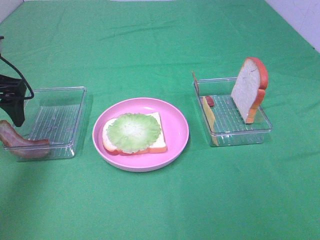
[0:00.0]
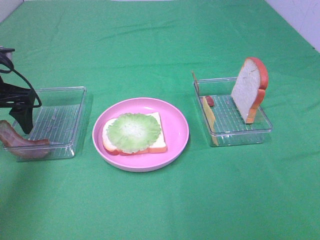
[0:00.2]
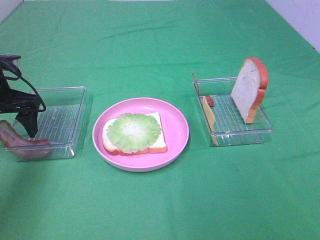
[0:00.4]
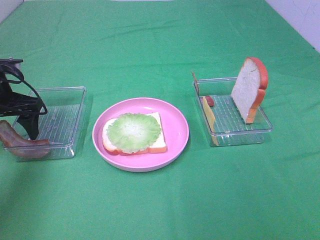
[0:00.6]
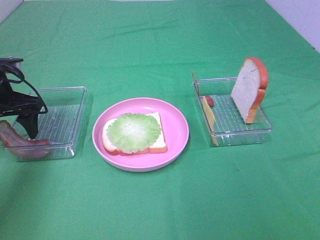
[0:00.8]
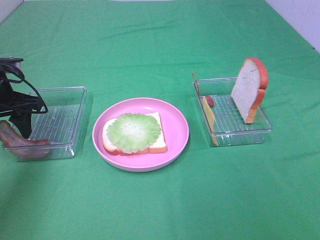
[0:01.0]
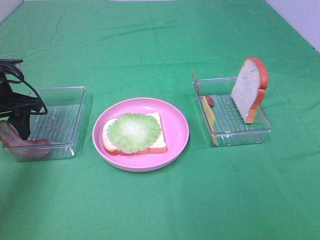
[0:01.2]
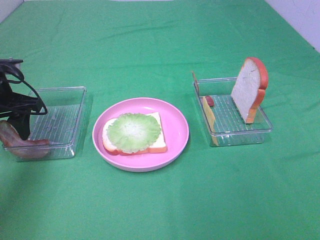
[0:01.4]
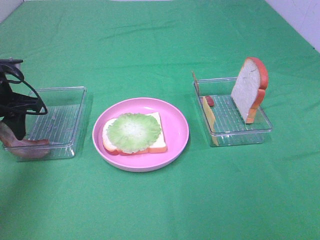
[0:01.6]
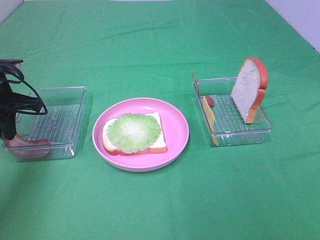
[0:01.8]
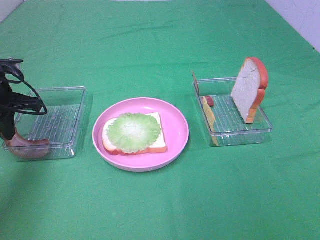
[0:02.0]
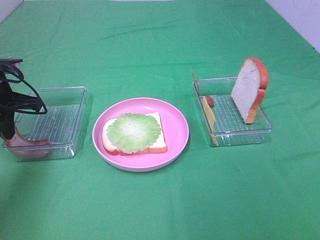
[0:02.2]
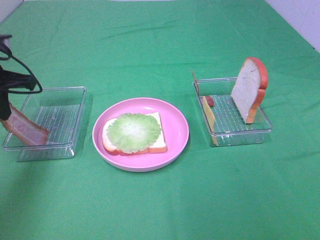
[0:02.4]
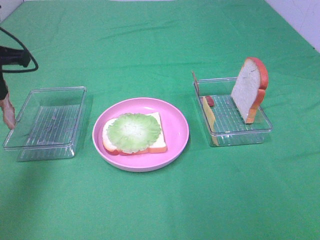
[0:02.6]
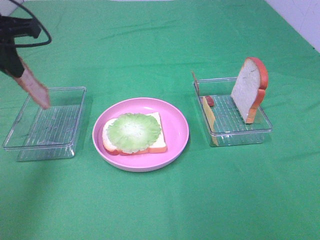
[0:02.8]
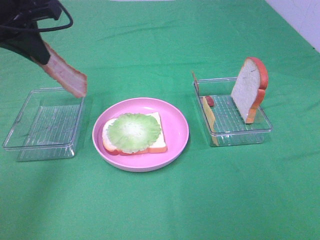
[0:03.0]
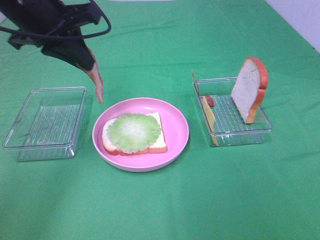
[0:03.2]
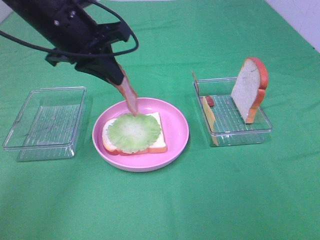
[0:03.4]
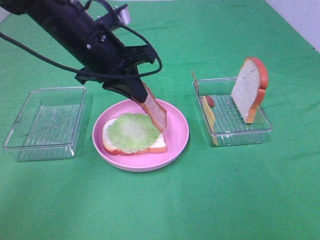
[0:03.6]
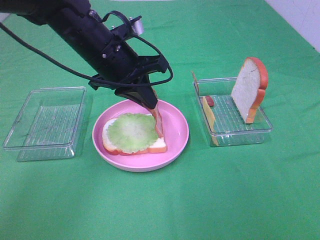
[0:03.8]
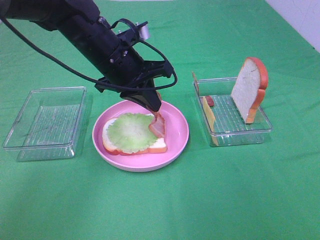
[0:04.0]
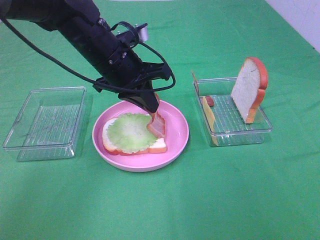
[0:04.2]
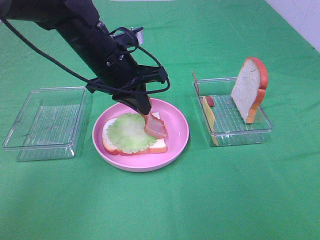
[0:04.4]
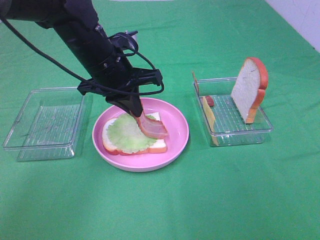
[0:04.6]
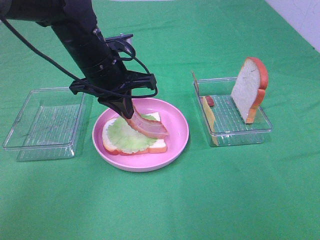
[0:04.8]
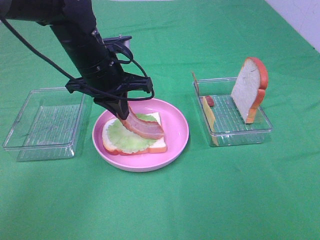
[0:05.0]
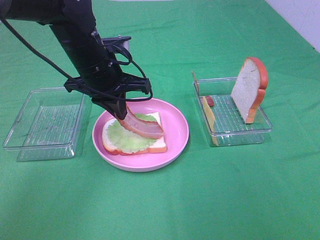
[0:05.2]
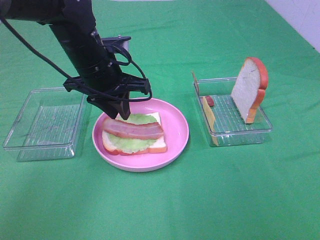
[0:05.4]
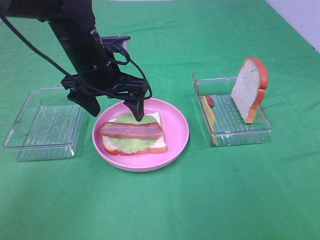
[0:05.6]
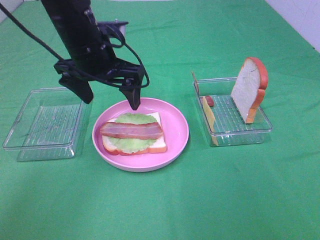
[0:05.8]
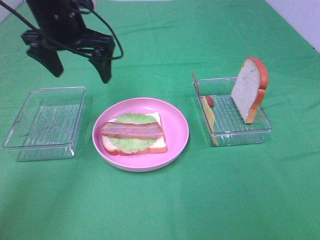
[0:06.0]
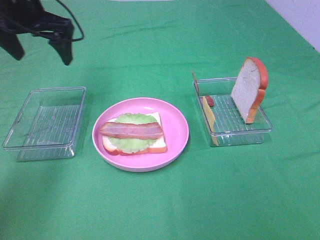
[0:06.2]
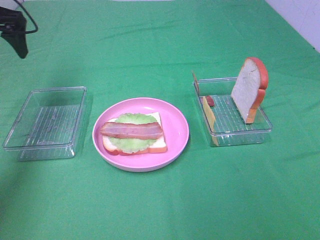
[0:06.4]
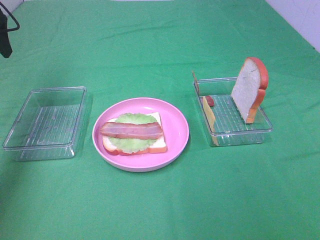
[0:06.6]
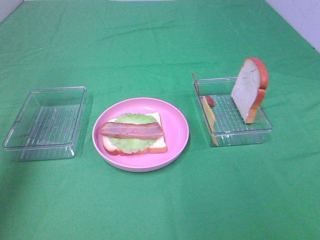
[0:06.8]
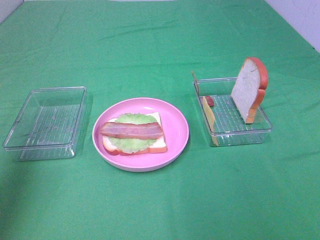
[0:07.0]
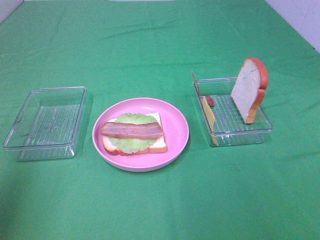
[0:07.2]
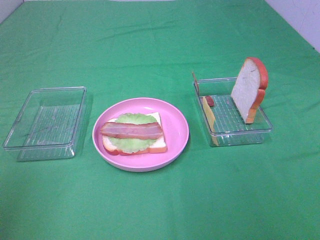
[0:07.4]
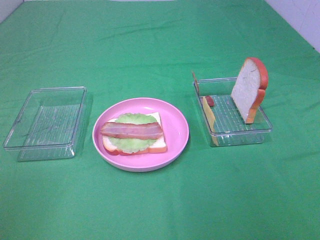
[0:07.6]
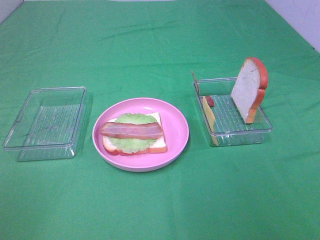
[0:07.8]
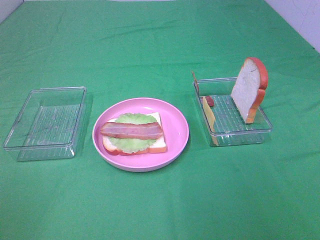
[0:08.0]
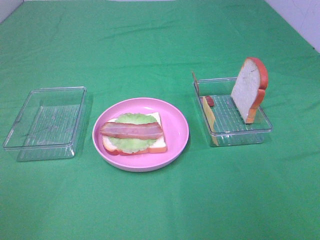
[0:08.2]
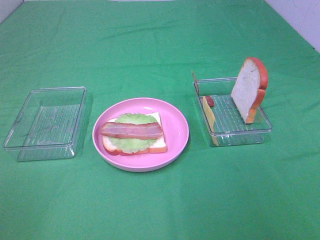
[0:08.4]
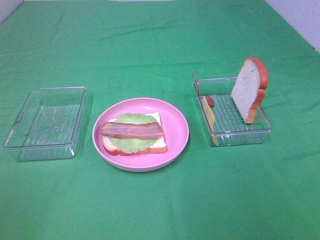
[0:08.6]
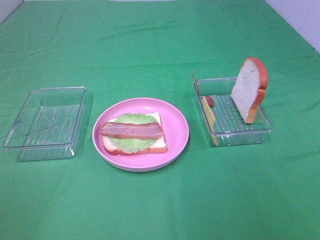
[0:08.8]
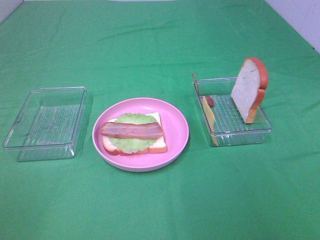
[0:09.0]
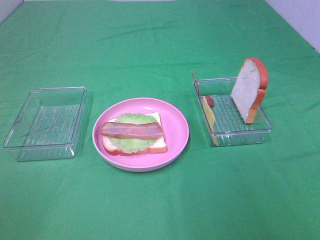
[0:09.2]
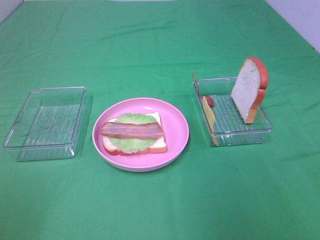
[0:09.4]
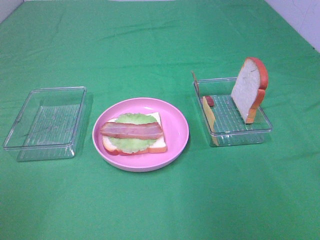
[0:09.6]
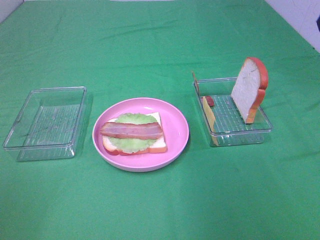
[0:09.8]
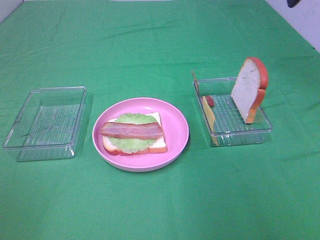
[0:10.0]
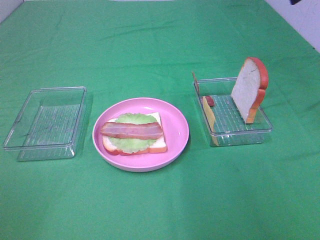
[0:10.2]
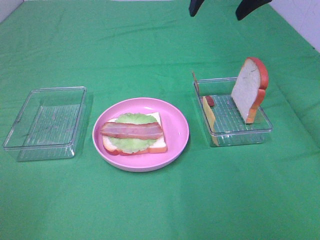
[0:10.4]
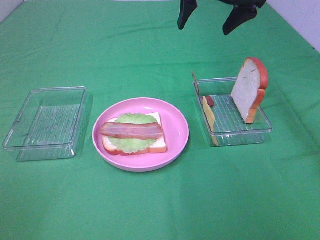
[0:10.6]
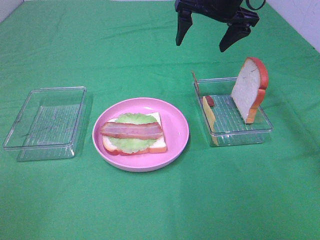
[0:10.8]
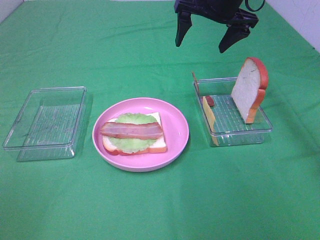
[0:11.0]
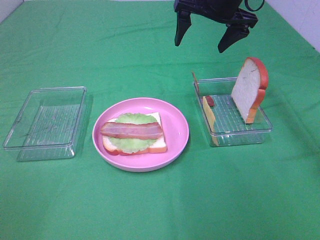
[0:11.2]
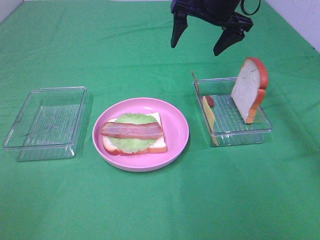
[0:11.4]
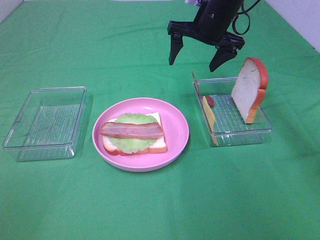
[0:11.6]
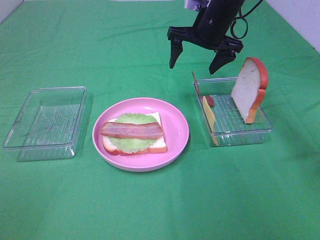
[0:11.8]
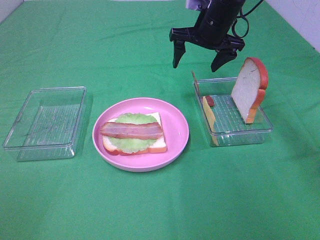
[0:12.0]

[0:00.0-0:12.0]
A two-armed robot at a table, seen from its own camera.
Task of the whole recording: Make sandwiches.
Step, 0:00.0 to 0:02.0: Left hand:grab the bacon.
Step, 0:02.2 to 0:05.4: Left hand:place bacon on lettuce slice.
0:00.0 to 0:01.6: The left gripper travels downward by some 5 cm, and closes up.
0:01.6 to 0:03.0: The left gripper is displaced upward and to the right by some 15 cm, and closes up.
0:03.0 to 0:04.4: The left gripper is displaced to the right and downward by roughly 15 cm.
0:04.4 to 0:06.0: The left gripper heads to the left and upward, covering about 10 cm, and opens.
0:06.0 to 0:07.6: The left gripper heads backward, covering some 40 cm.
0:09.0 to 0:10.4: The right gripper goes approximately 40 cm forward.
0:10.4 to 0:12.0: The right gripper goes some 15 cm downward.

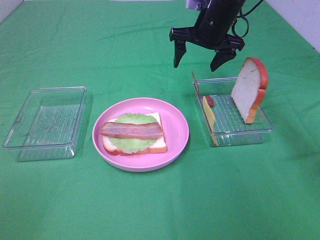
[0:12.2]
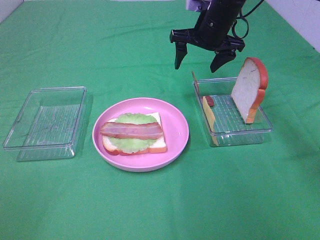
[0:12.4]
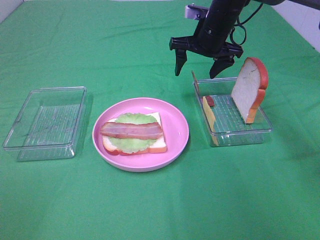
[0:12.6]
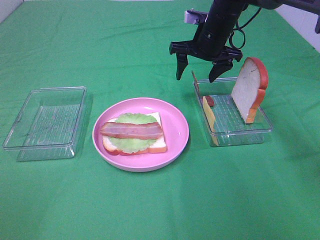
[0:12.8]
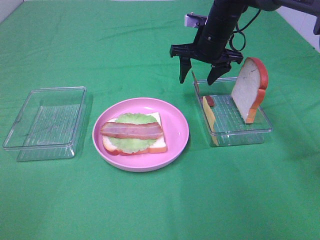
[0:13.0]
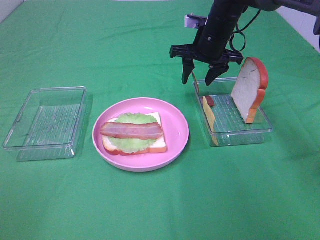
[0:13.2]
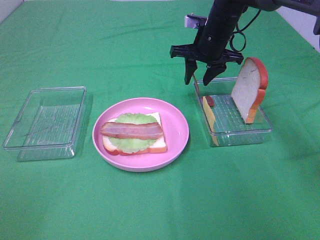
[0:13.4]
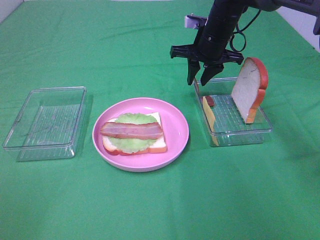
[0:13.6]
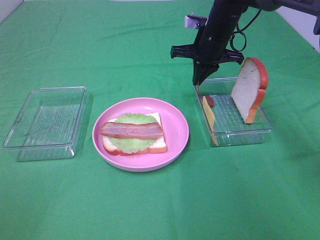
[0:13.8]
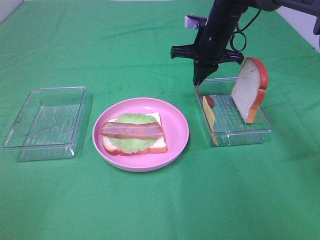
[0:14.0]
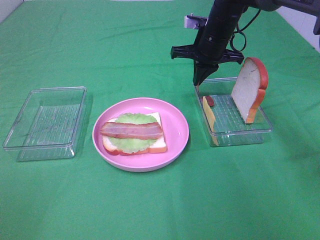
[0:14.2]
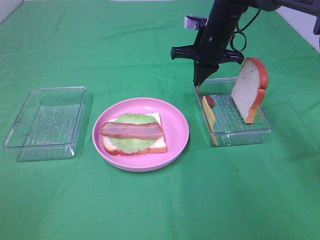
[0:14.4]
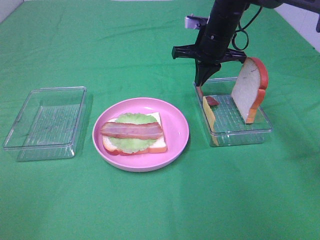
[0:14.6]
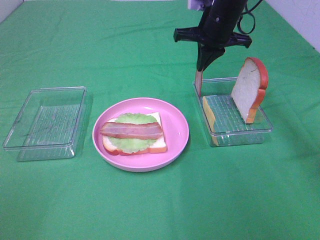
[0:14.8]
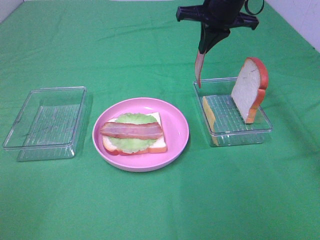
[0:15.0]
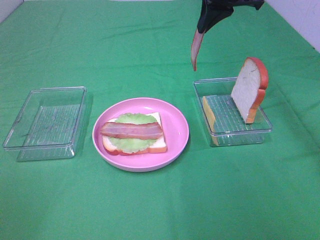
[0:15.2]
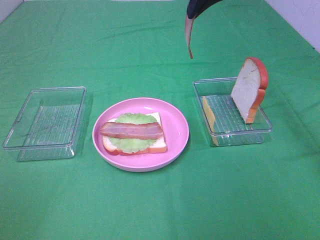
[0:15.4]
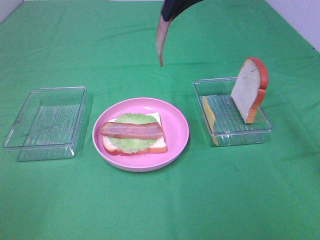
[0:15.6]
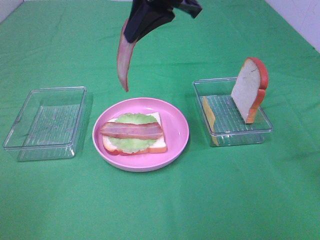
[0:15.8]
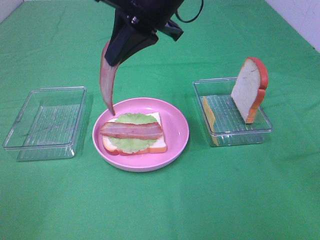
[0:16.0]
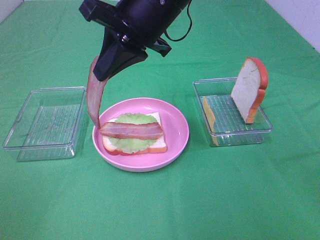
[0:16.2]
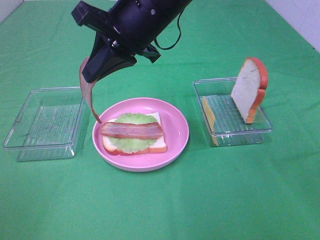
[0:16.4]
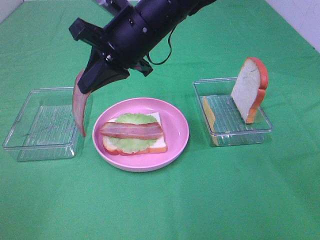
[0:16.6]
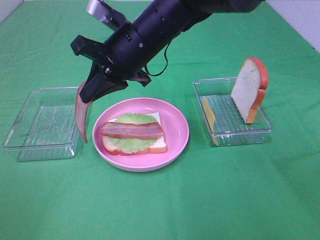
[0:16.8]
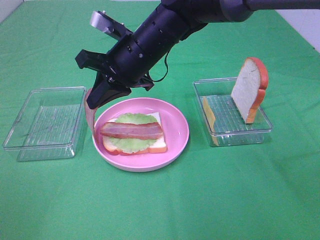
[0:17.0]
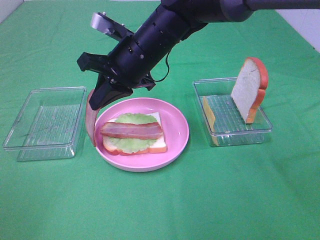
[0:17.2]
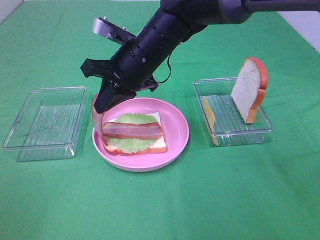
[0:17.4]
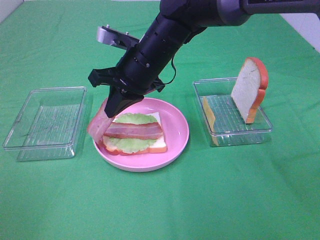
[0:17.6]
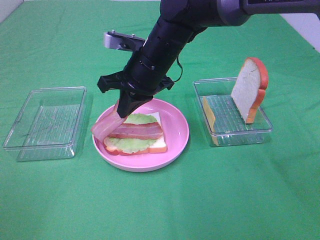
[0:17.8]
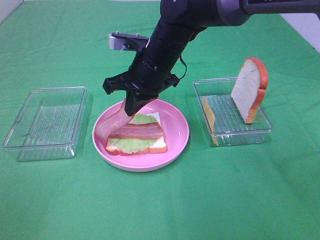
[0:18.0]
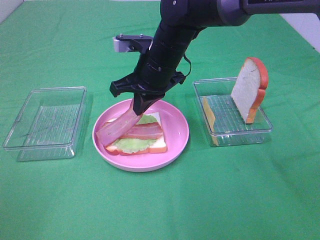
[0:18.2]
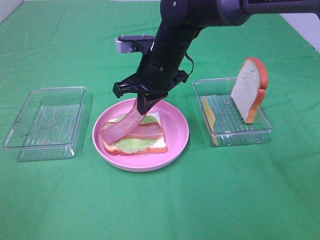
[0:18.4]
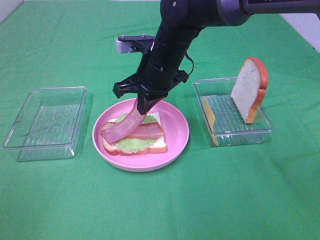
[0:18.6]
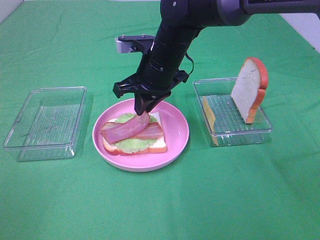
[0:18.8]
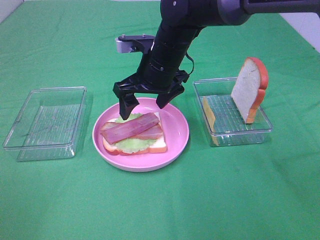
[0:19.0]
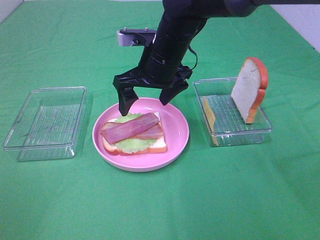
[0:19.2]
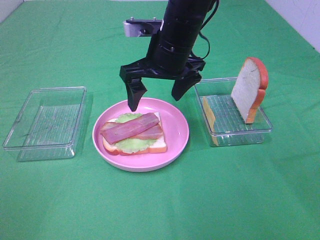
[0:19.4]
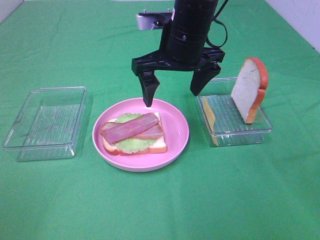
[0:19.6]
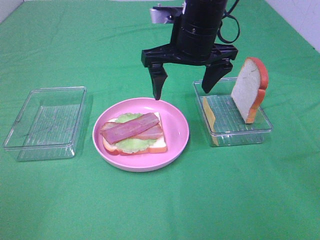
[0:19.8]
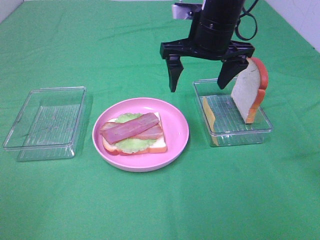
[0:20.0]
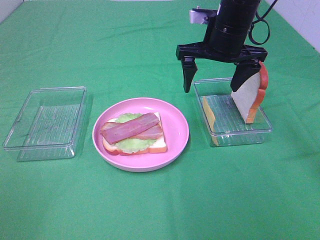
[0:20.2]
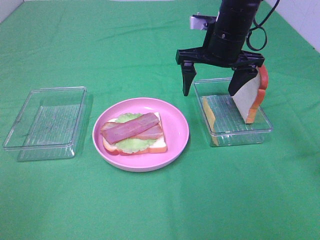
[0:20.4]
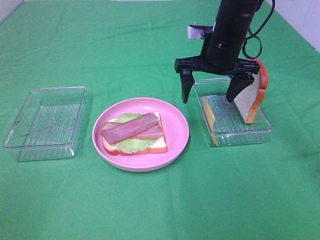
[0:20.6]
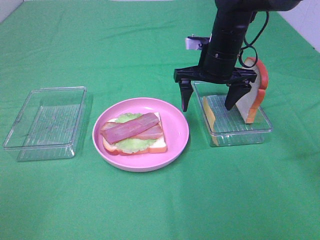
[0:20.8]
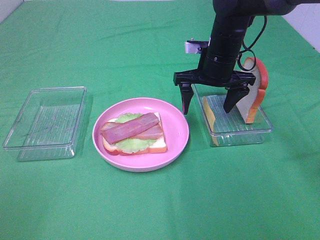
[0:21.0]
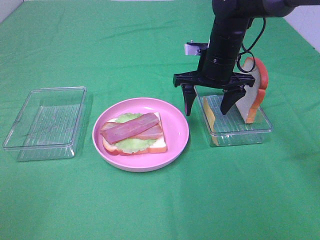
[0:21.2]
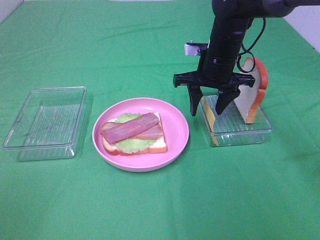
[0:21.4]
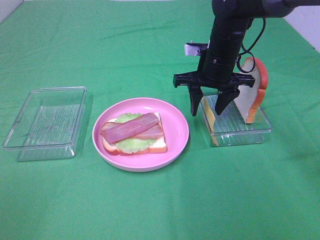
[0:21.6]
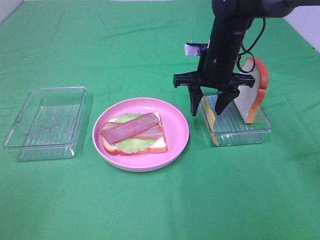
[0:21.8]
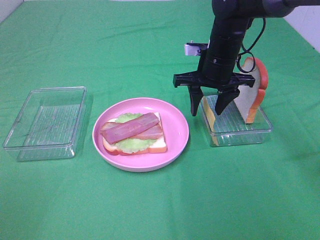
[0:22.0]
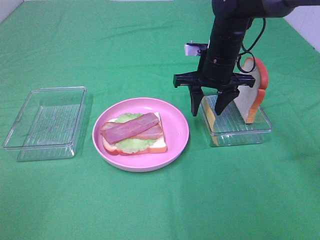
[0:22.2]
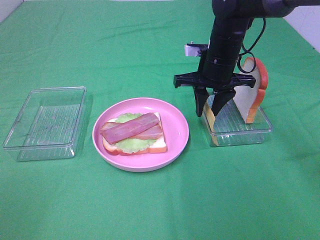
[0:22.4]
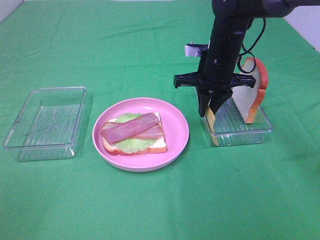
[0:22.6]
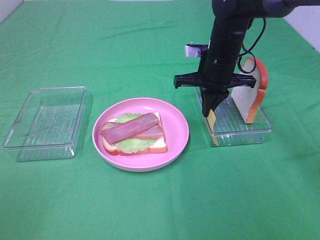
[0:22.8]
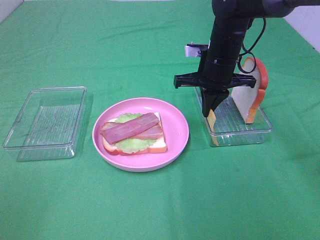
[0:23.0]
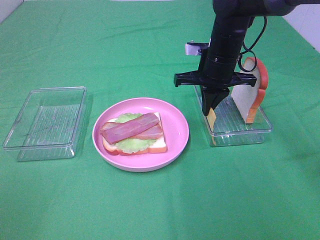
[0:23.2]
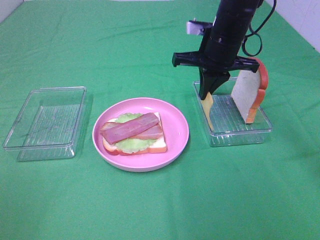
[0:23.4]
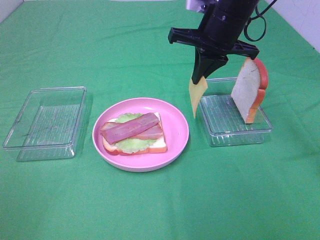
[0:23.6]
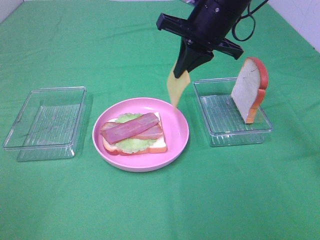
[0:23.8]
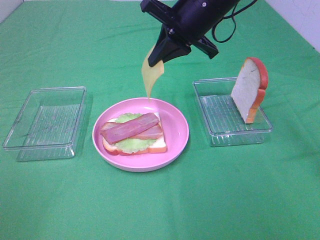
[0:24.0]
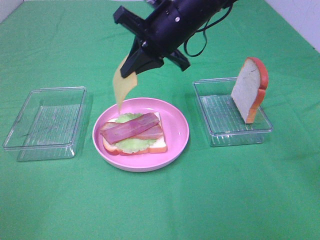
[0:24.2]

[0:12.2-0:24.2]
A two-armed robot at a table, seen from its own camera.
Task of the whole recording: Make sandwiches.
Step, 0:12.2 to 0:14.6: Right hand:grab the bacon.
Step, 0:14.8 to 0:19.0: Right hand:place bacon on bacon.
Step, 0:19.2 to 0:23.0: Right hand:grab the cheese slice.
0:12.2 to 0:13.8: The right gripper closes.
0:13.8 to 0:15.2: The right gripper shifts roughly 15 cm upward.
0:15.2 to 0:16.6: The right gripper moves to the left, backward and downward, roughly 20 cm.
0:16.6 to 0:18.2: The right gripper heads downward, covering some 5 cm.
0:18.2 to 0:19.8: The right gripper goes about 10 cm upward and to the right, and opens.
0:19.8 to 0:21.2: The right gripper moves downward, to the right and forward, some 10 cm.
0:21.2 to 0:22.6: The right gripper closes.
0:22.6 to 0:24.2: The right gripper moves to the left and upward, roughly 10 cm.
